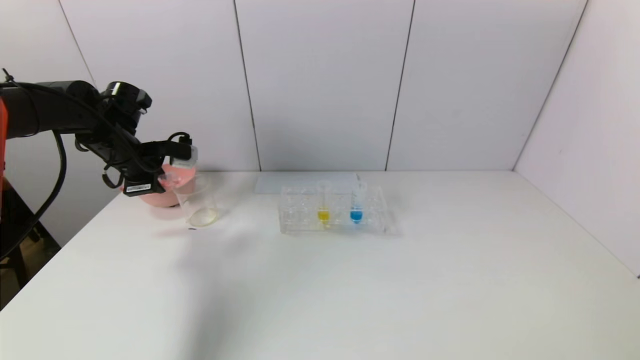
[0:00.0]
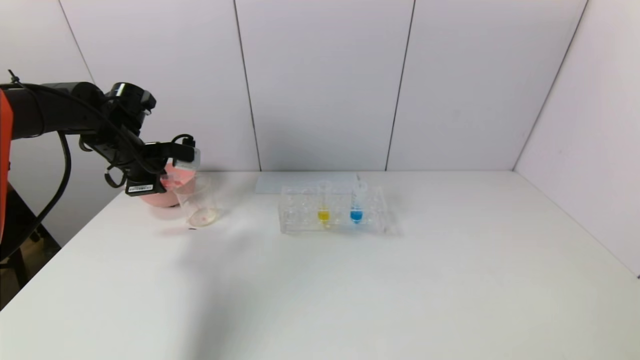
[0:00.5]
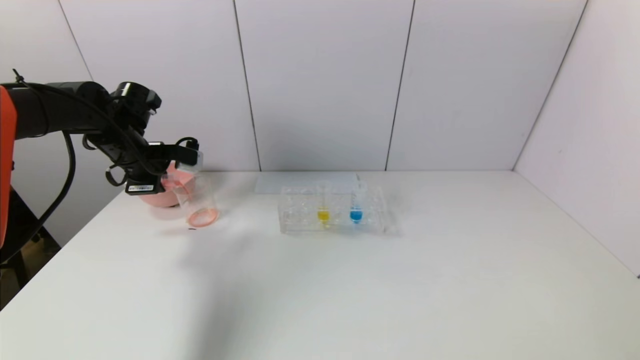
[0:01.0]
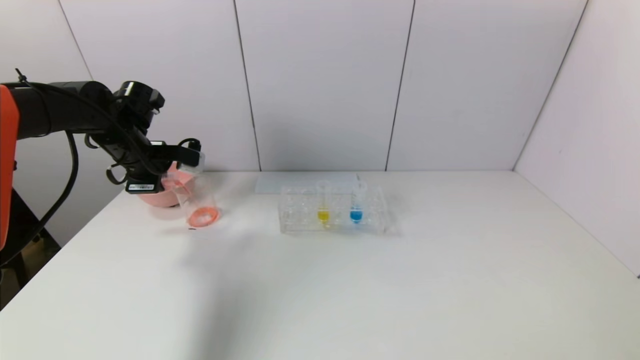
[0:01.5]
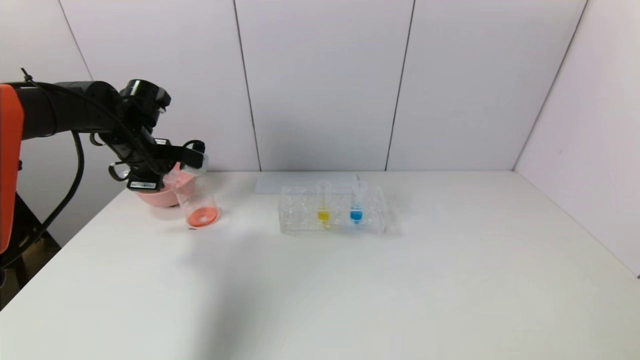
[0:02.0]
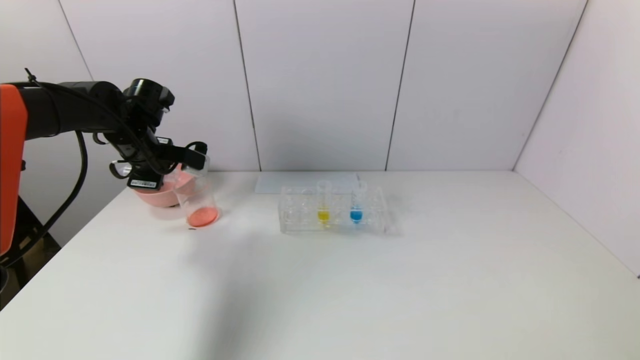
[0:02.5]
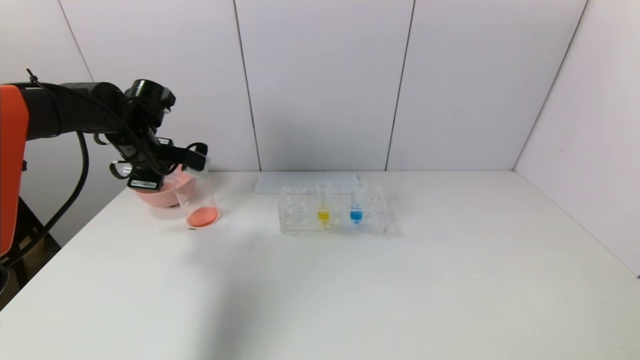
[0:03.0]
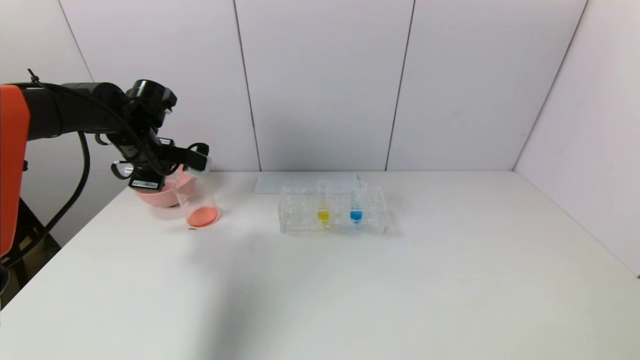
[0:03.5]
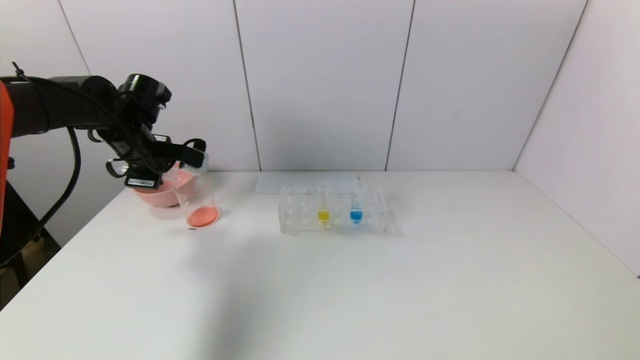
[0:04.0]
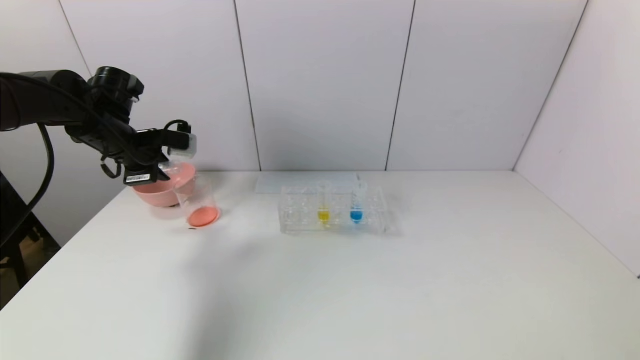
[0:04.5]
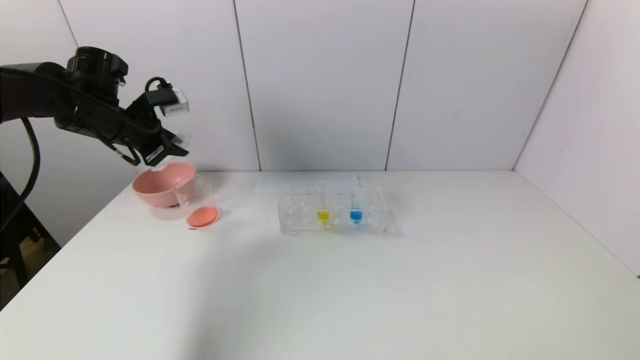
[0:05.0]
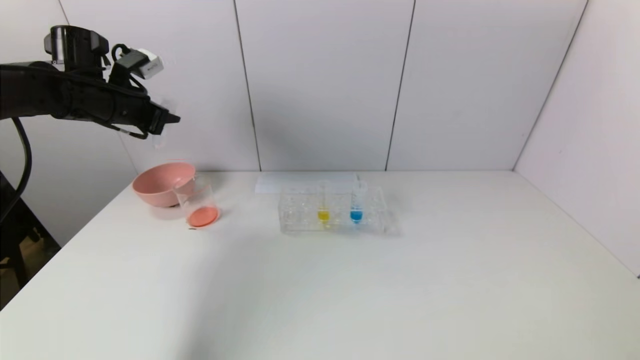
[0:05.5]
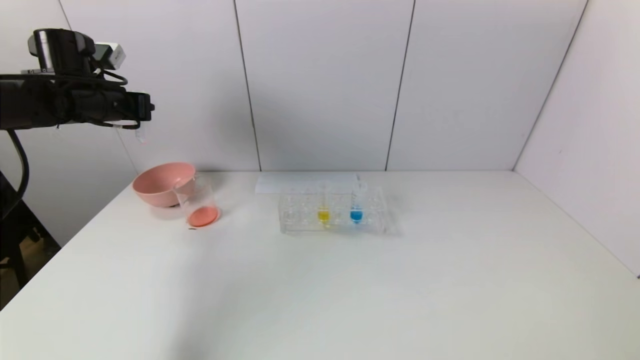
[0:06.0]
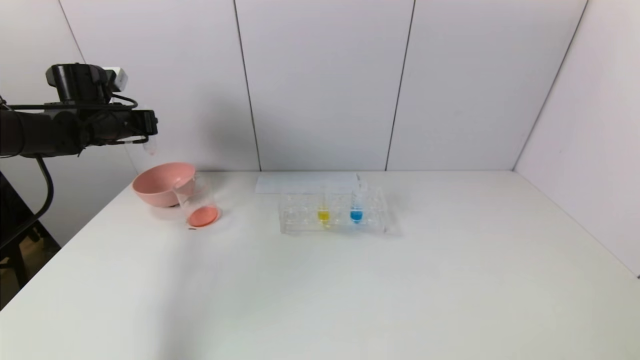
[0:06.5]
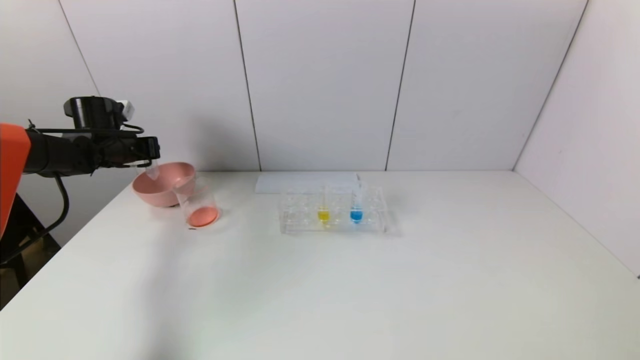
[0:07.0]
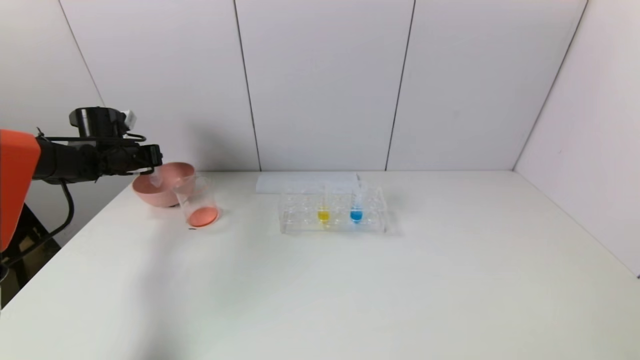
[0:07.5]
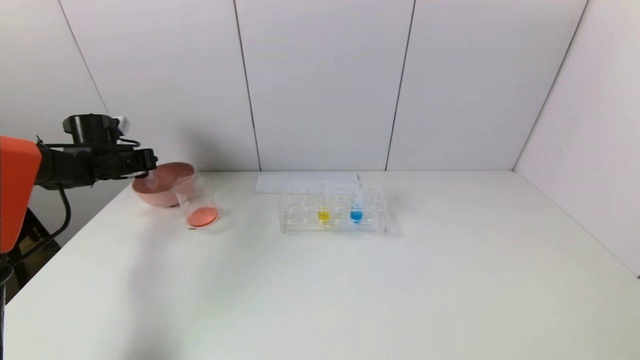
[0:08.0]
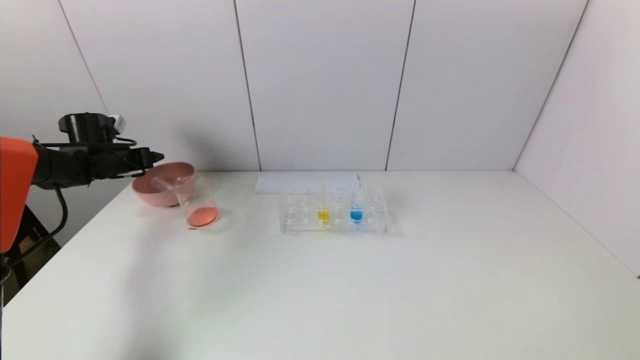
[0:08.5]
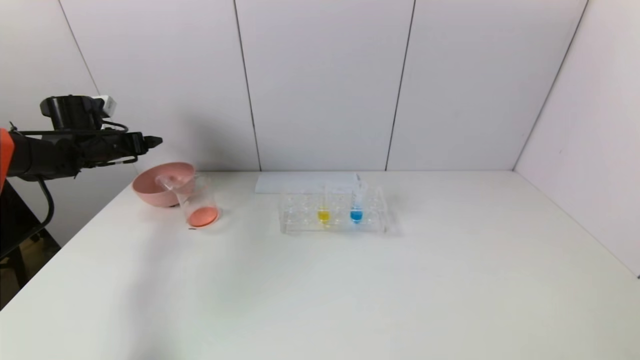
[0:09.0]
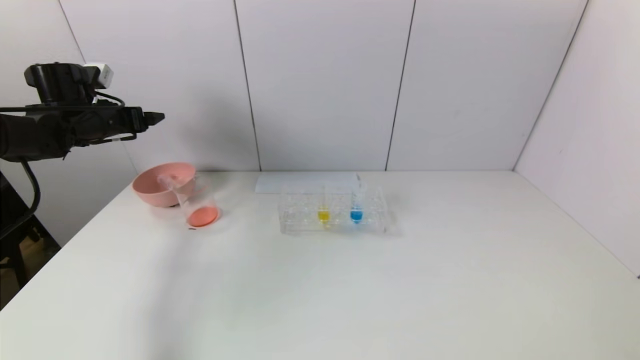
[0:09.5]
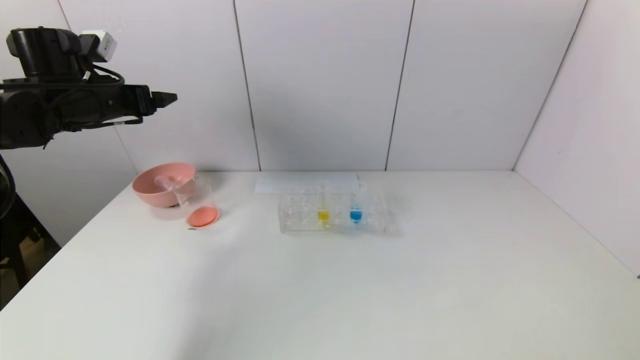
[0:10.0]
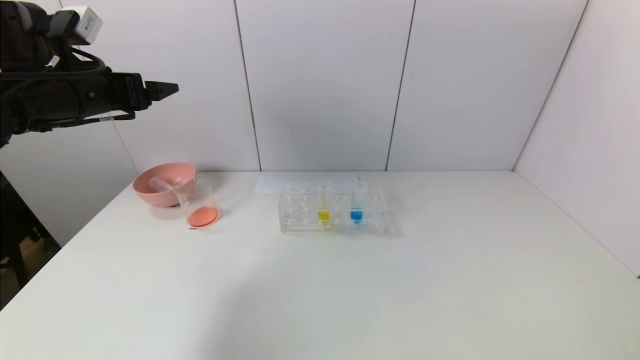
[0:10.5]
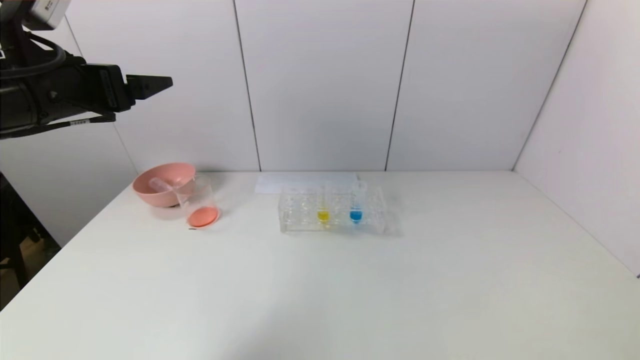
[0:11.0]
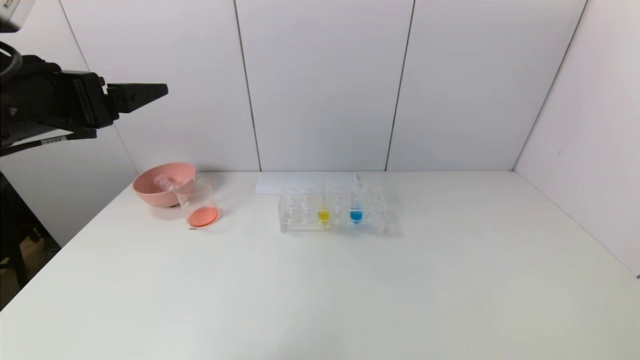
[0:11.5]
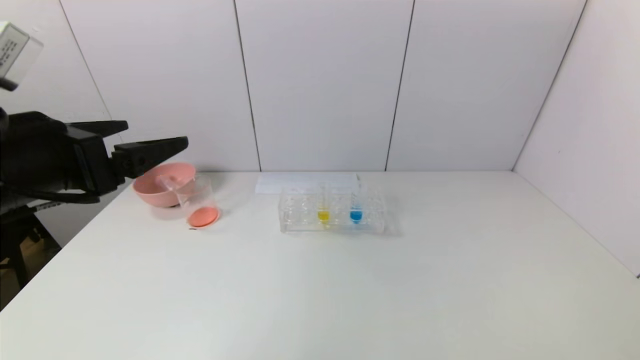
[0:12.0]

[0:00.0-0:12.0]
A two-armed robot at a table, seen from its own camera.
Task of the whole recording: pick up the test tube with yellow pigment and the test tube with red pigment by grippers and pour them into the beaker.
Step, 0:00.0 to 0:03.5: Pour the red reagent into the graduated cylinder with the left gripper.
Step, 0:04.0 to 0:08.5: Place the test tube into the pink bowl with the left gripper.
0:00.0 to 0:04.0: The grippers make only small movements.
0:04.0 to 0:06.0: The left gripper travels to the left and upward by approximately 10 cm.
0:06.0 to 0:08.0: The left gripper heads downward, to the left and forward, covering about 15 cm.
0:08.0 to 0:10.0: The left gripper moves upward, backward and to the right, about 20 cm, and opens up.
0:10.0 to 0:12.0: The left gripper moves backward and to the right, approximately 25 cm.

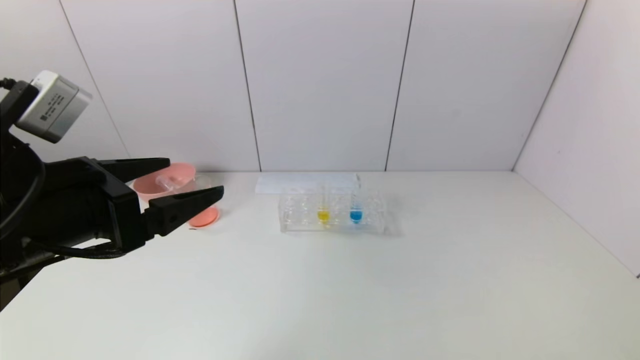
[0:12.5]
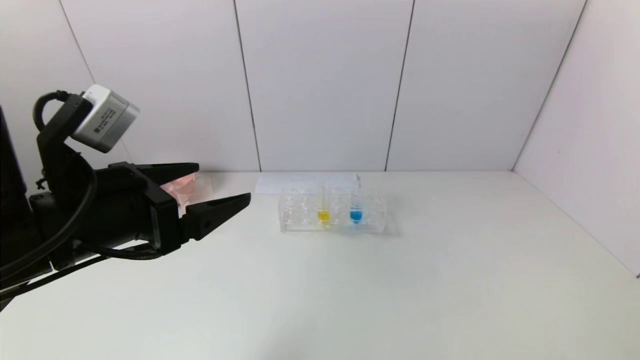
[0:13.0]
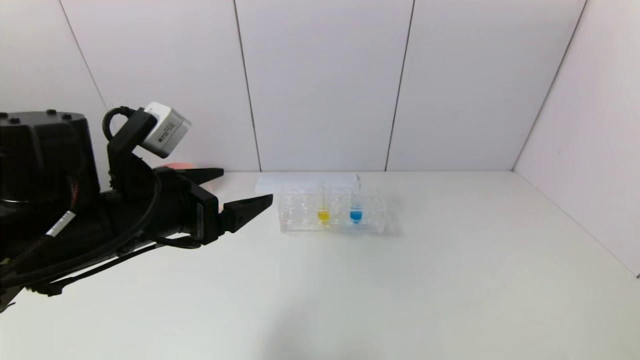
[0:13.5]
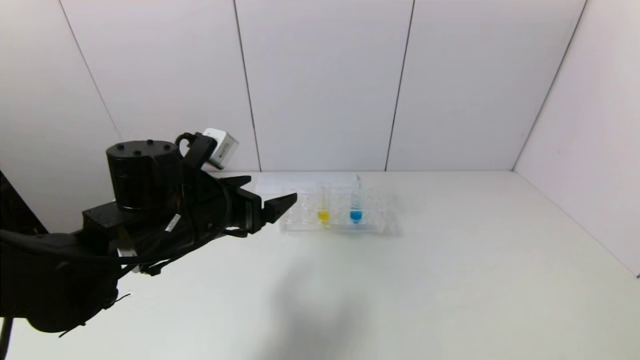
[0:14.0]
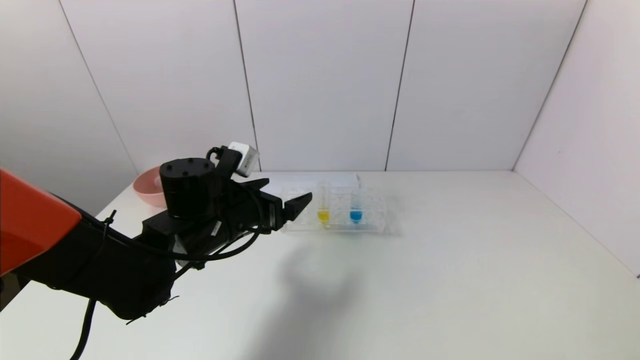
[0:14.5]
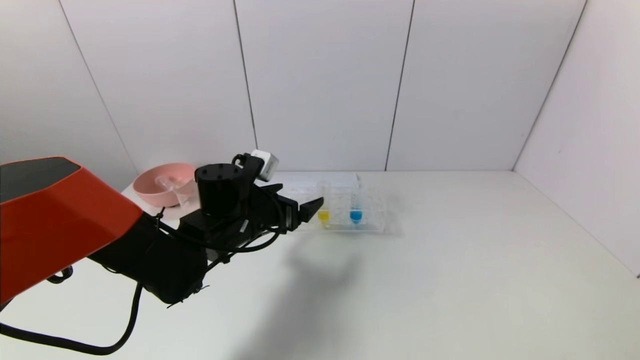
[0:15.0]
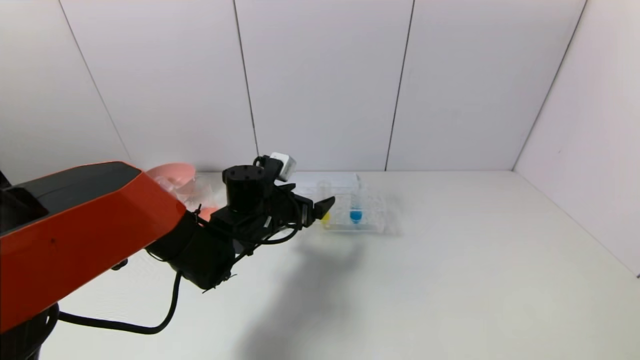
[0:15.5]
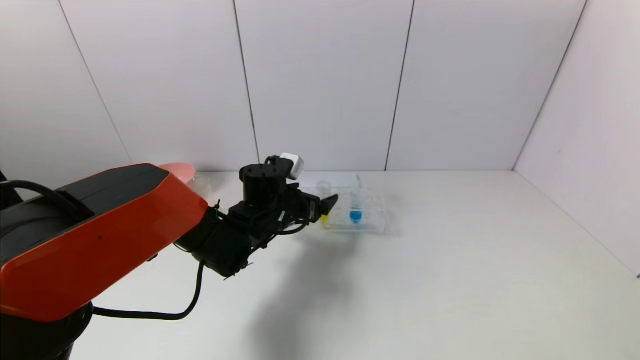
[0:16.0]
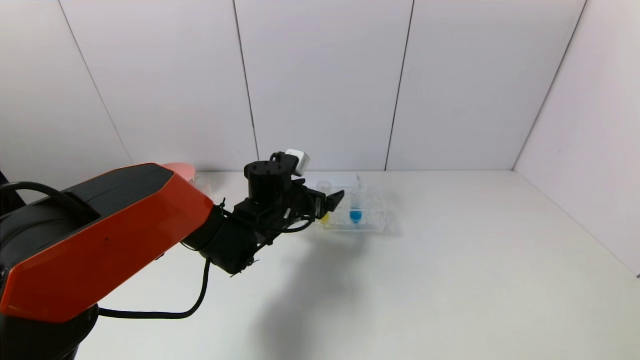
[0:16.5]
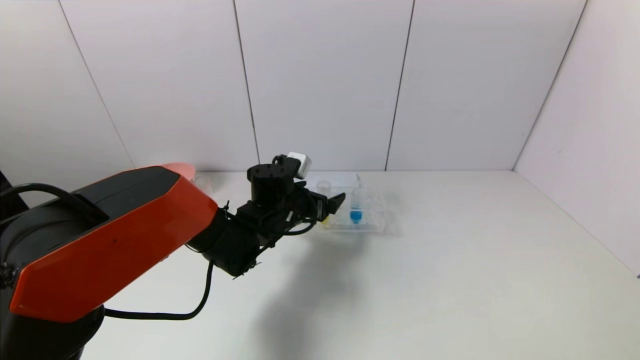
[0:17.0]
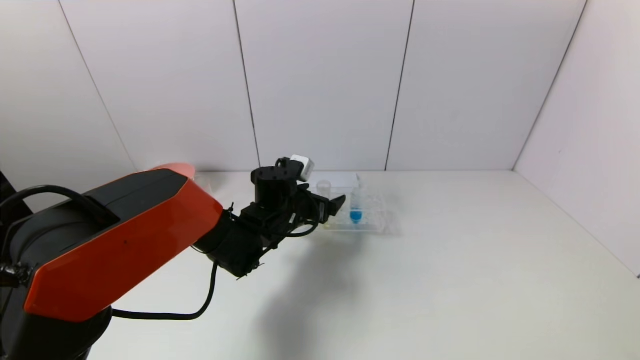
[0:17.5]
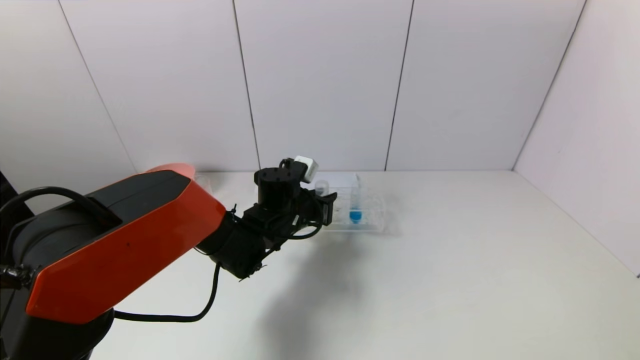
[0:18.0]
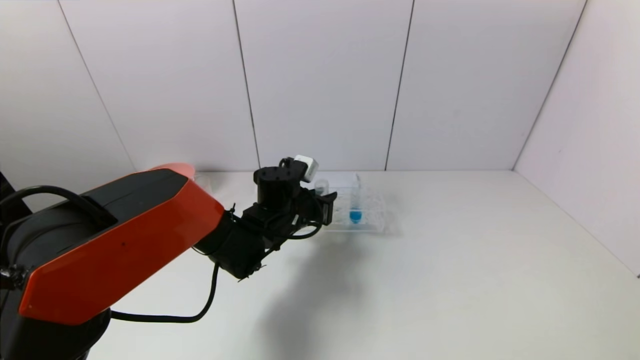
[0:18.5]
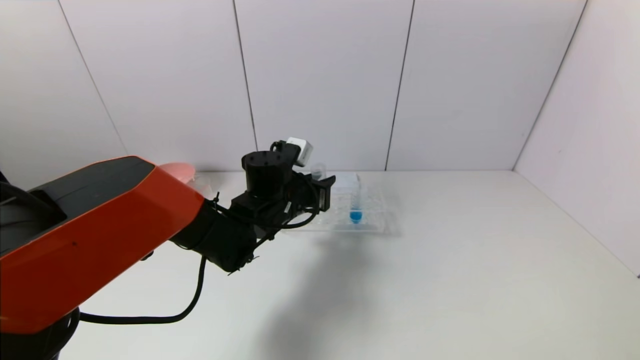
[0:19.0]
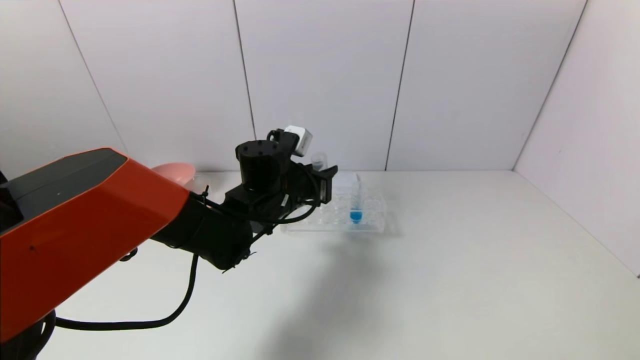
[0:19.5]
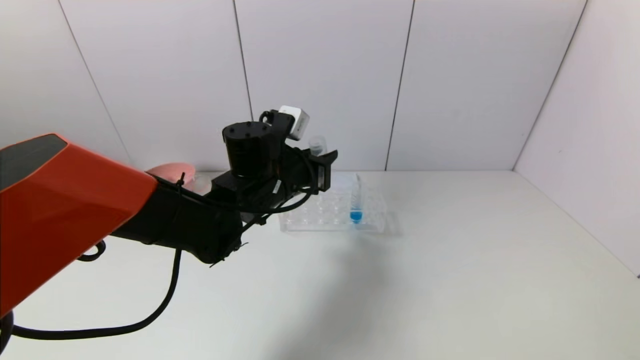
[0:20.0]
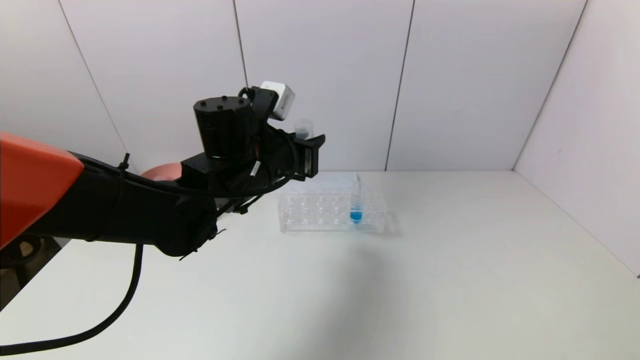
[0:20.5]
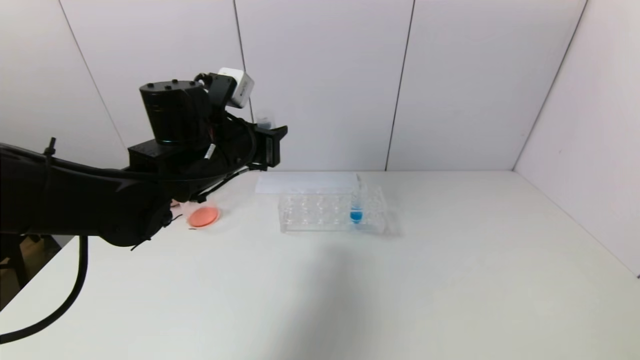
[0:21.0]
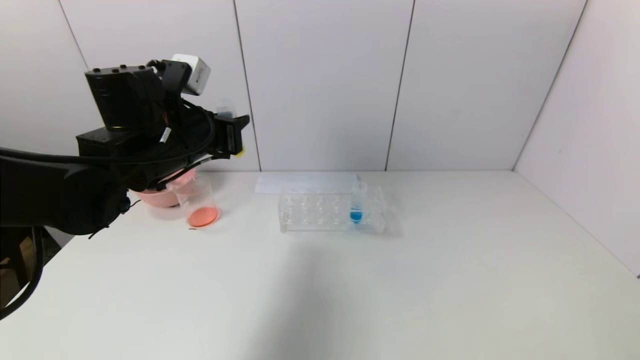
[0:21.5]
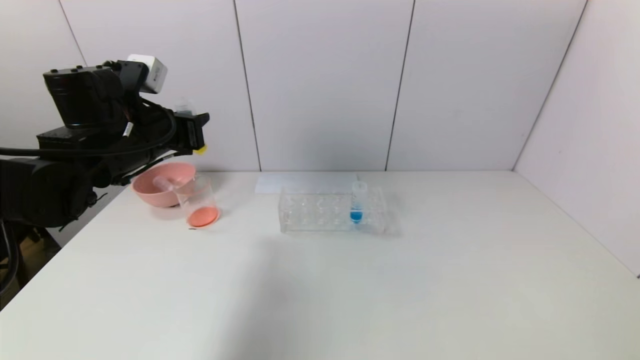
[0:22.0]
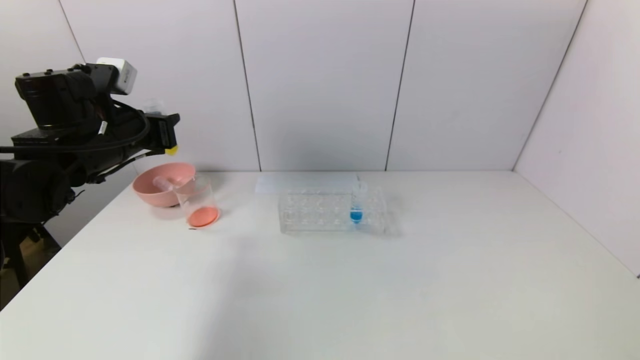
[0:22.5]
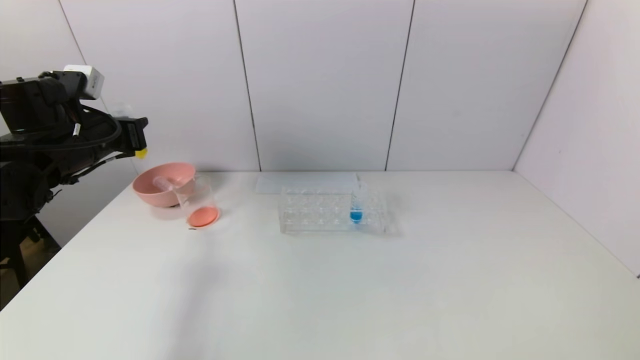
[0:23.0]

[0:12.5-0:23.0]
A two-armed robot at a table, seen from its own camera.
Task of the whole recording: pick up the test tube with yellow pigment and the test tube with red pigment by grippers and pour them into the beaker.
Step, 0:12.5 to 0:18.0: Grasp the yellow reagent with the left gripper.
0:12.5 to 0:14.5: The left gripper shifts some 20 cm forward, downward and to the right.
0:14.5 to 0:16.5: The left gripper shifts approximately 10 cm forward and to the right.
0:16.5 to 0:19.0: The left gripper closes.
0:19.0 to 0:21.0: The left gripper moves upward, to the left and backward, about 15 cm.
0:21.0 to 0:23.0: The left gripper shifts approximately 20 cm to the left.
